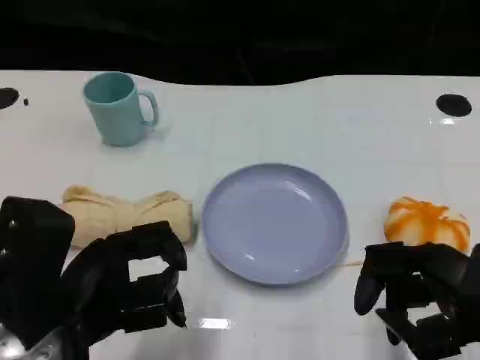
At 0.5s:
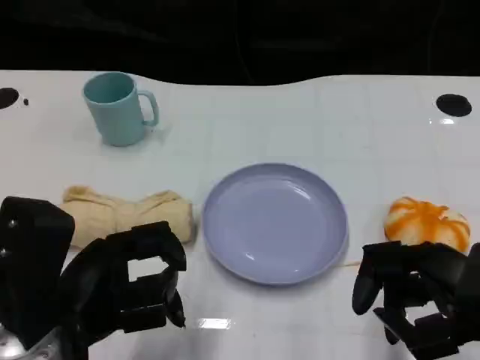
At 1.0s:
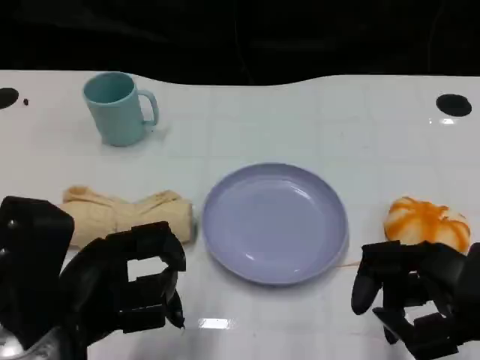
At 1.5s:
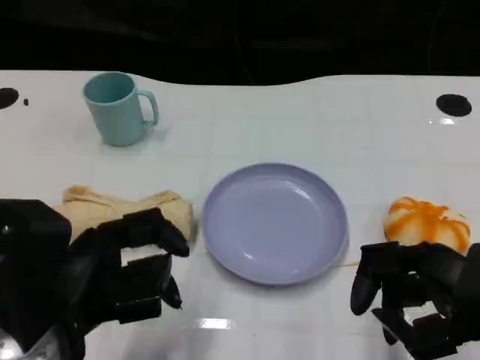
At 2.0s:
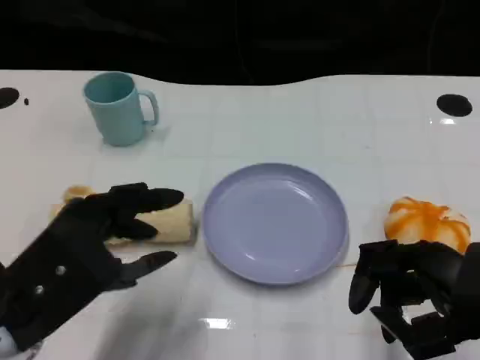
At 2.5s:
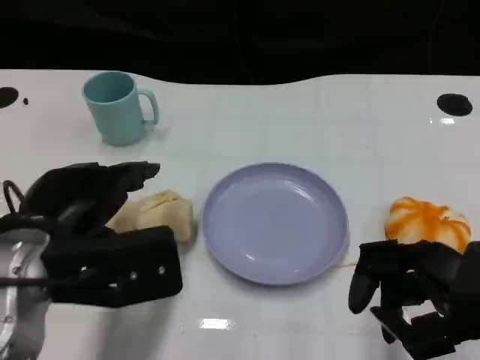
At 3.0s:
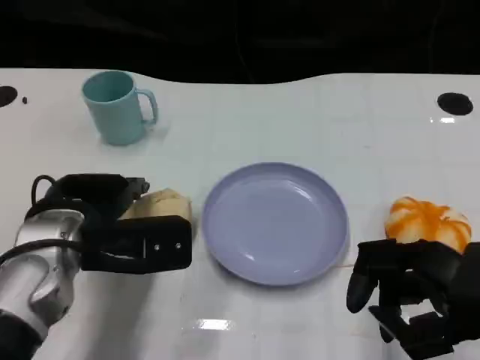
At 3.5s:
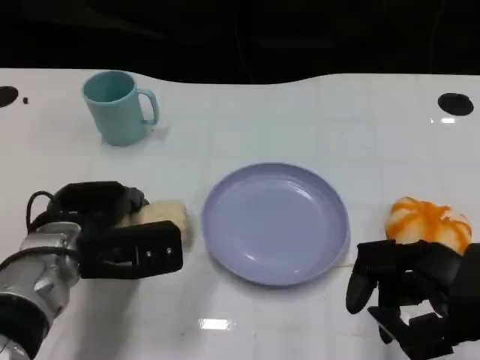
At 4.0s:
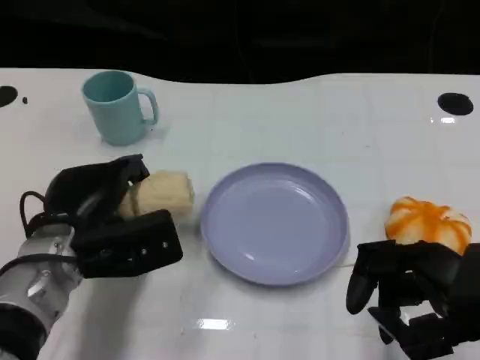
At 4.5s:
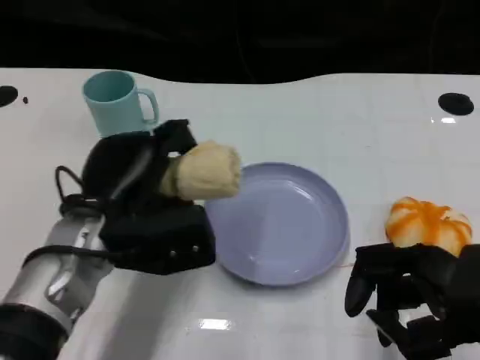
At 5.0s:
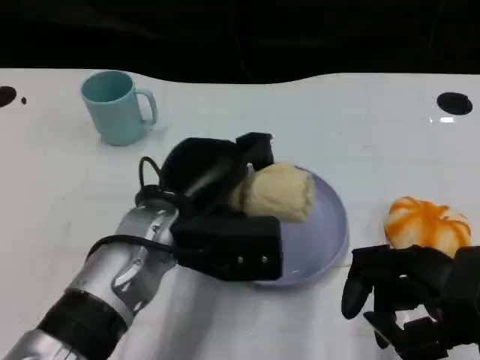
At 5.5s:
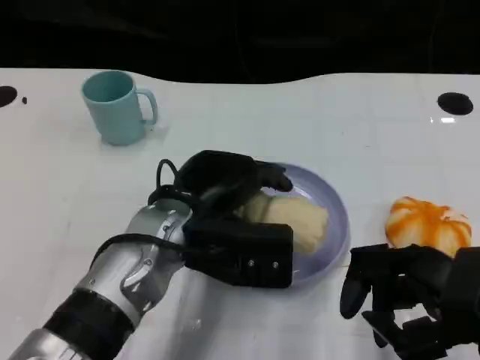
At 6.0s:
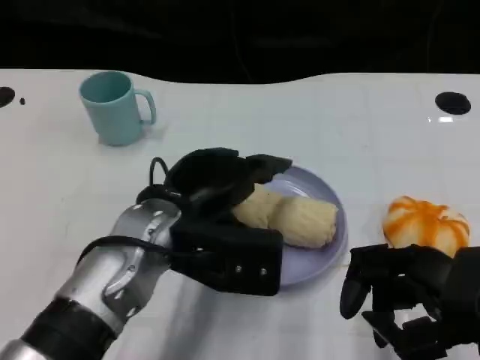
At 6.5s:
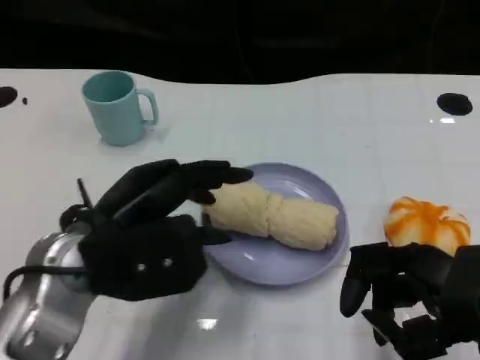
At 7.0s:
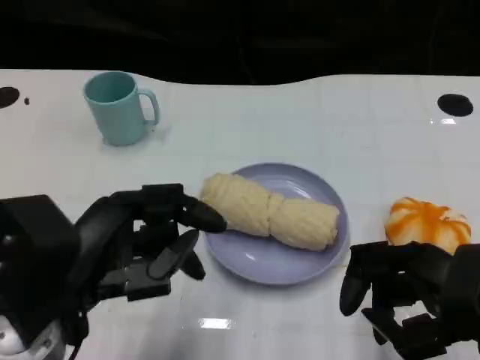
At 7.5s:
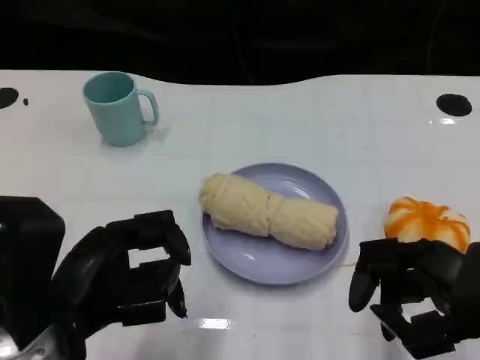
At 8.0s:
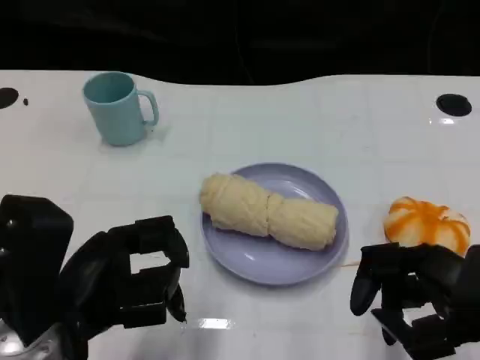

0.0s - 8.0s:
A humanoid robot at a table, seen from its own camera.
Task of the whole recording: Grasp the towel on the left side of the plate with the left hand and place it into the plate.
2.0s - 4.0s: The left hand heads forward and downward, covering roughly 10 cm.
4.0s - 6.0s: The left hand shifts some 10 cm to the right and upward.
6.0s - 8.0s: The left hand heads to the left and backward, covering about 15 cm.

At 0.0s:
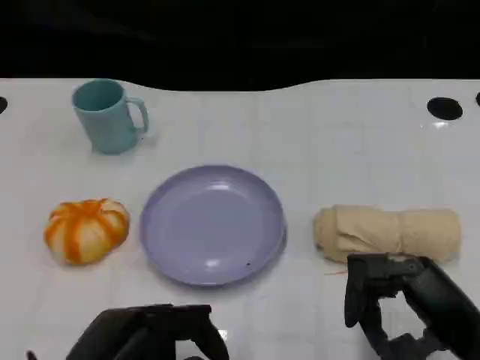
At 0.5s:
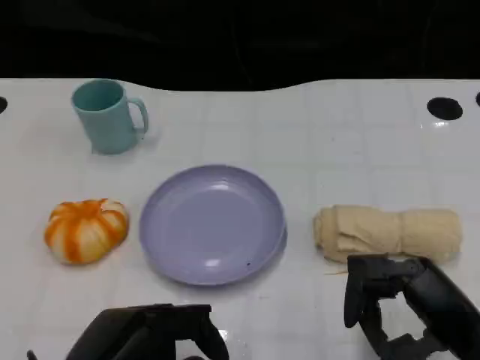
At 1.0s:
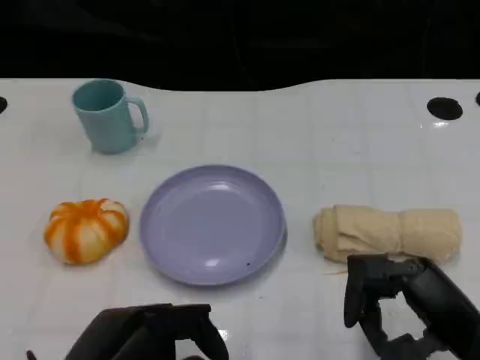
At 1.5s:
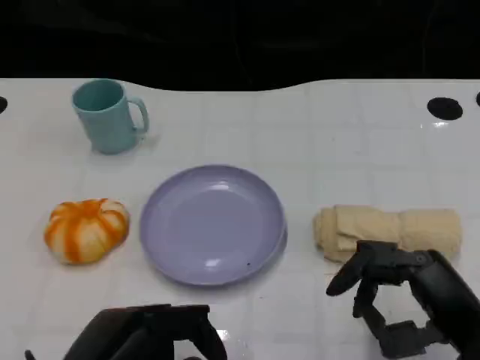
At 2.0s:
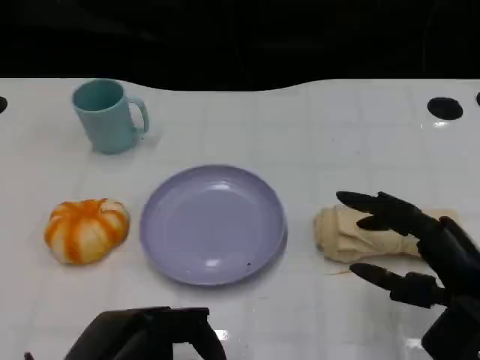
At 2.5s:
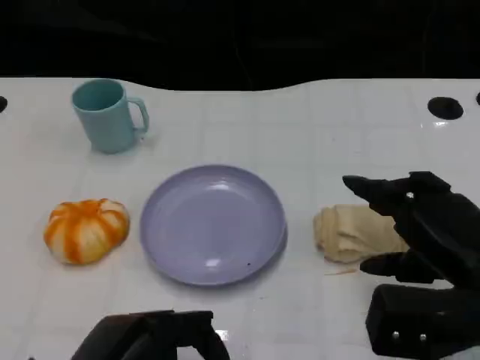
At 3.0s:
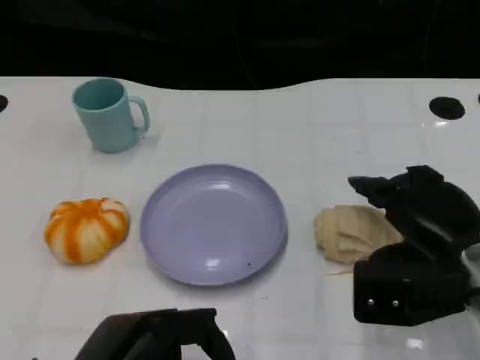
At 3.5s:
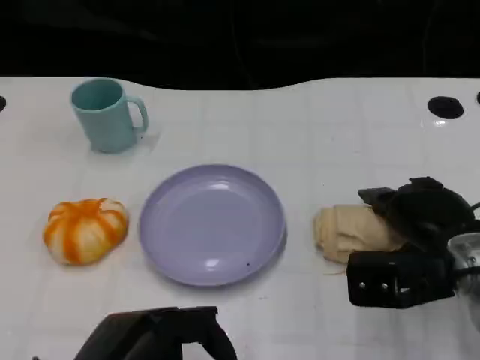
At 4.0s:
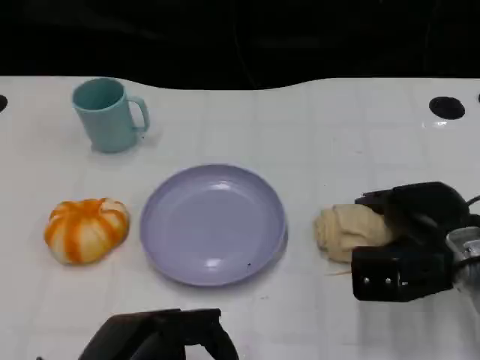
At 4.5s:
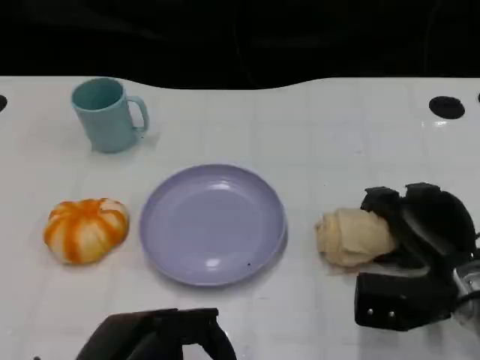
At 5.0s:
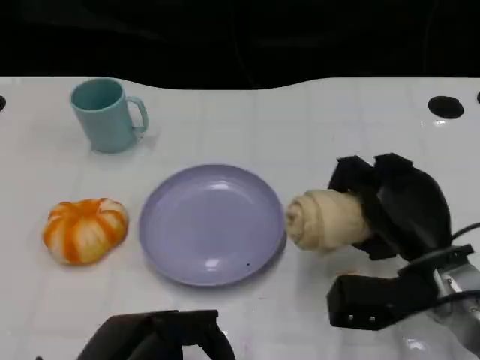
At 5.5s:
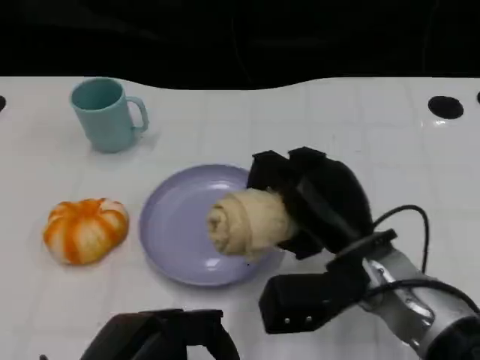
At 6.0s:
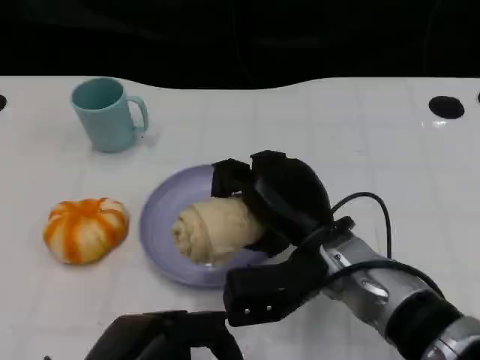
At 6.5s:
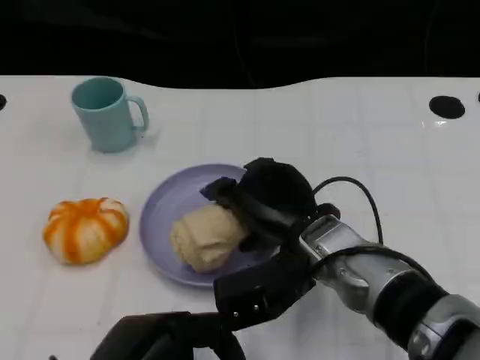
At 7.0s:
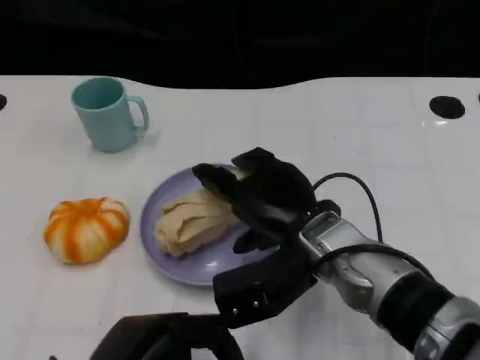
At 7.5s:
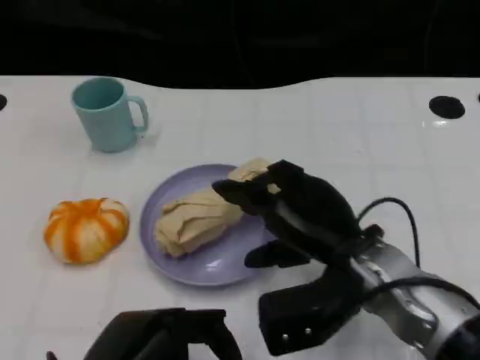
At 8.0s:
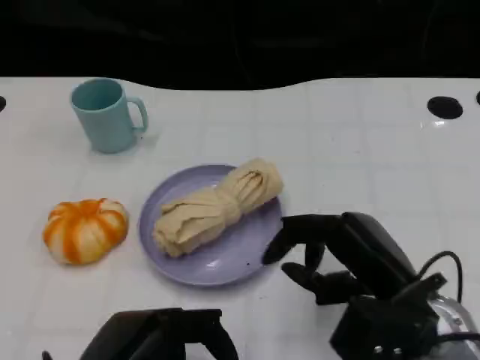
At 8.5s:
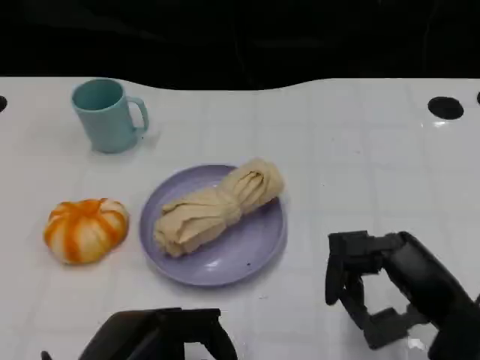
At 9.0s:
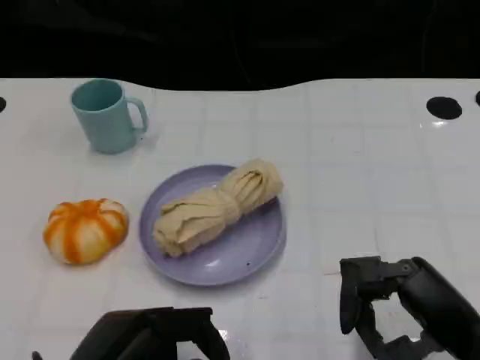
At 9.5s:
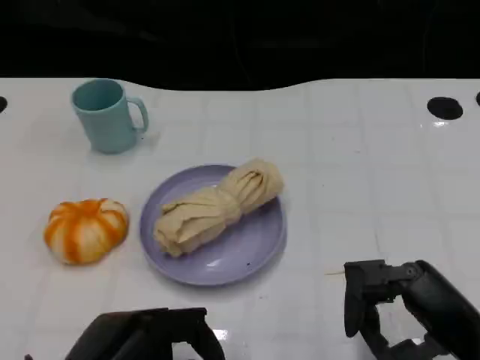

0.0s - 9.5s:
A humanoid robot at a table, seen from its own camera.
Task of the whole recording: Grasp the towel on the left side of the plate with the left hand and place it into the plate.
0.0s - 2.0s: The hands make only small movements.
2.0s - 4.0s: The right hand travels forward by approximately 10 cm.
4.0s - 5.5s: The right hand shifts some 10 cm to the left.
7.5s - 9.5s: The right hand travels to the right and backward by roughly 15 cm.

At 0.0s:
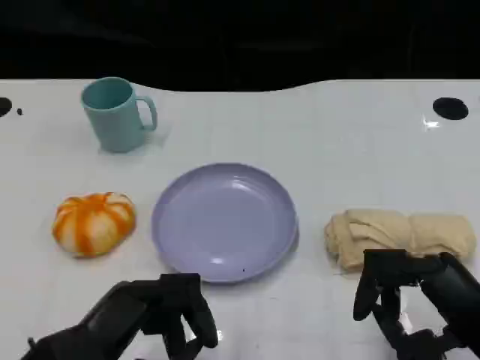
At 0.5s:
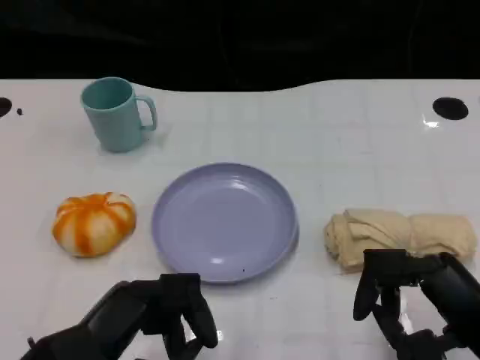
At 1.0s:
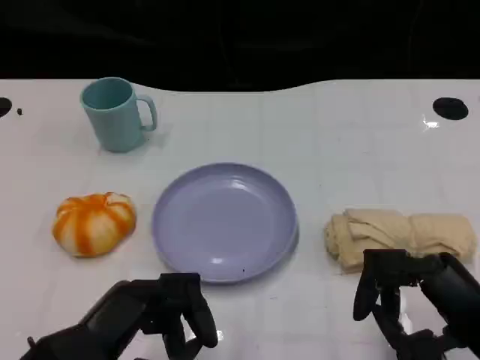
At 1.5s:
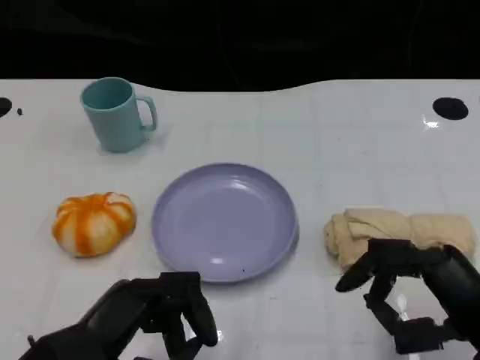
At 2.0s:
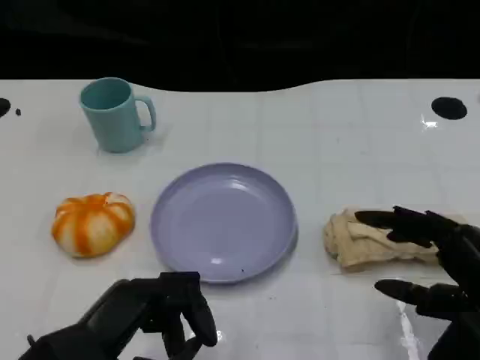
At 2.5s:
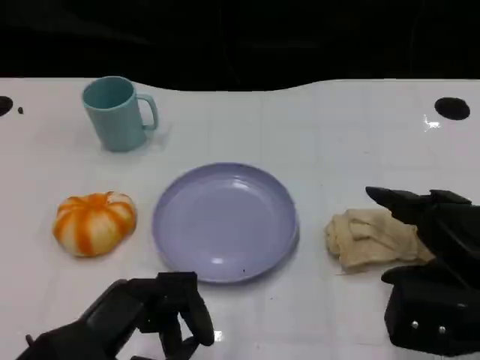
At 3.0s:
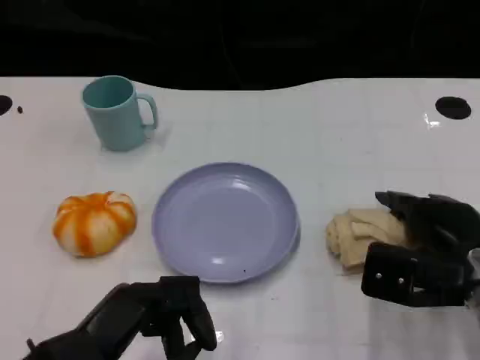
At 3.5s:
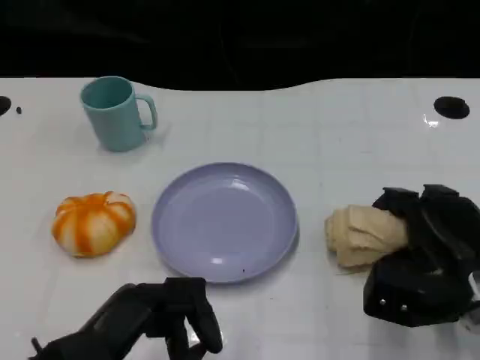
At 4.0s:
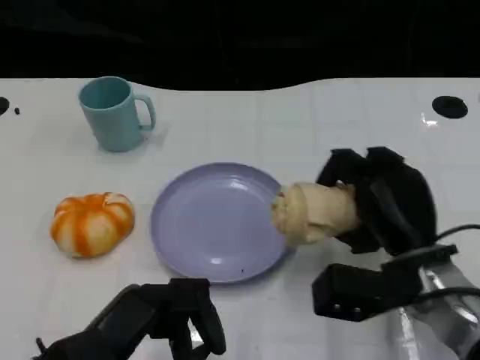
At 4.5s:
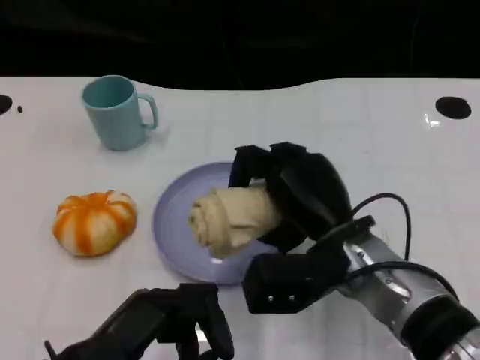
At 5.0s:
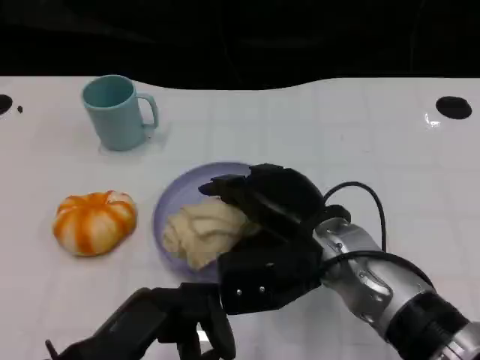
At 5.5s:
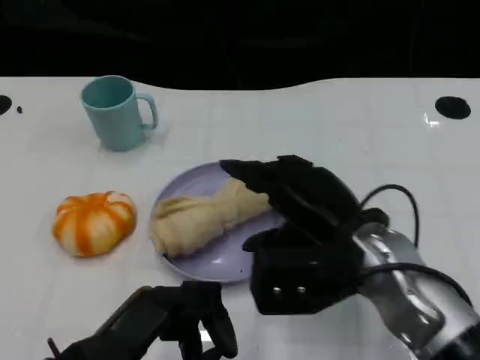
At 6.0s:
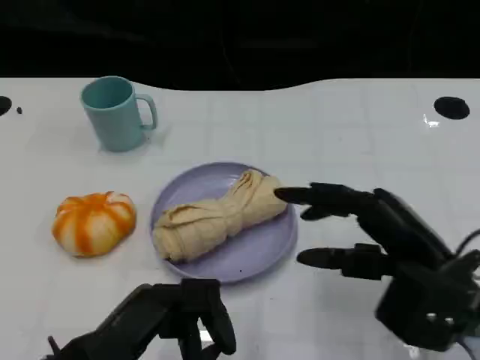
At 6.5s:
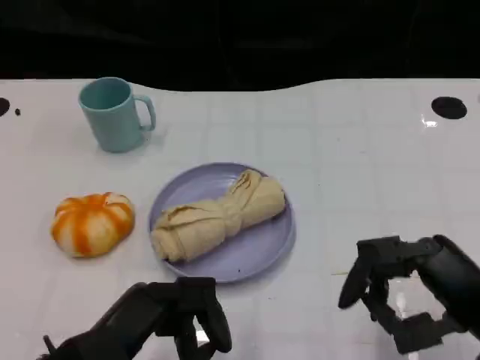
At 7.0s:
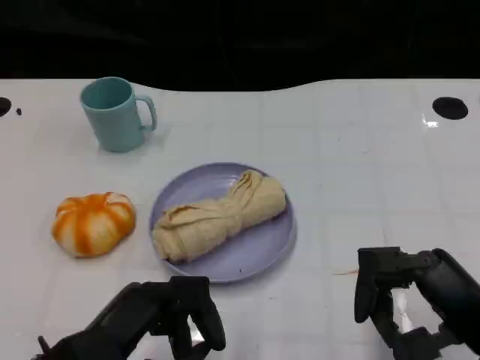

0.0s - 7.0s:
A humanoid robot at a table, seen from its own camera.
Task of the whole recording: Grasp the towel on the left side of the plate with the left hand and place it into the plate.
2.0s - 3.5s: The right hand moves forward and downward, roughly 10 cm.
3.5s - 5.0s: The right hand travels to the left and upward by approximately 15 cm.
5.0s - 7.0s: The right hand heads to the right and backward, covering roughly 20 cm.

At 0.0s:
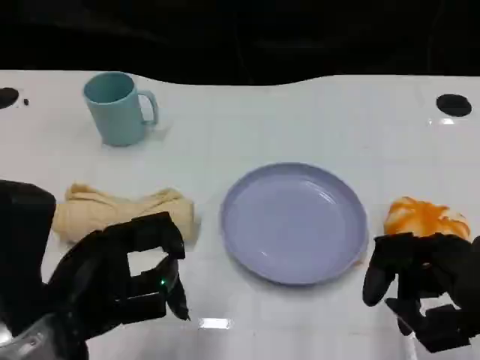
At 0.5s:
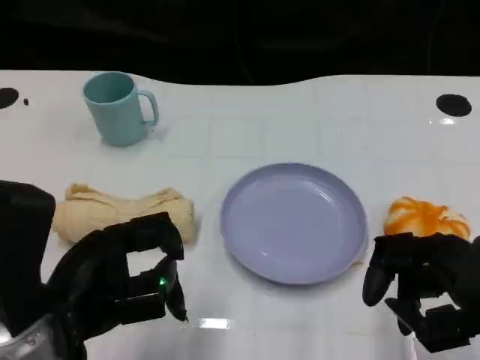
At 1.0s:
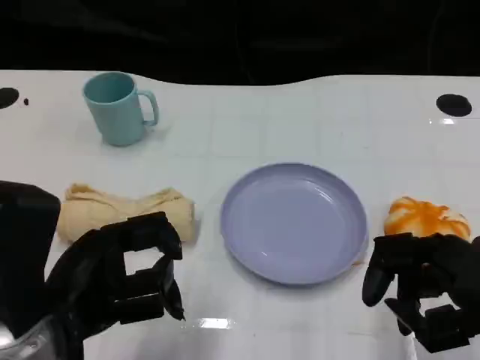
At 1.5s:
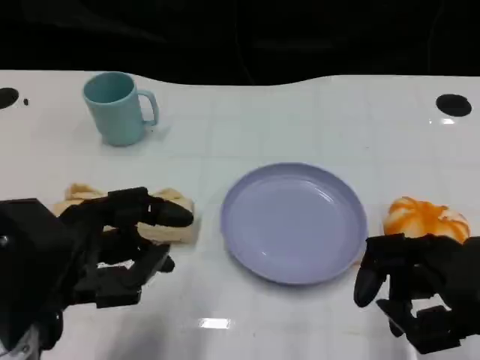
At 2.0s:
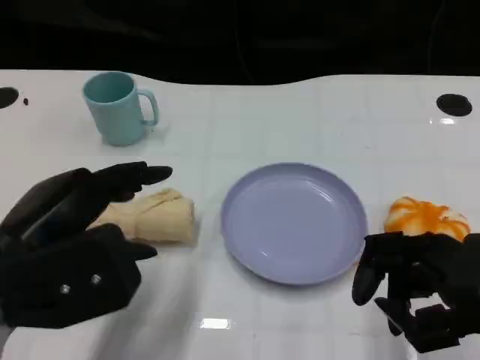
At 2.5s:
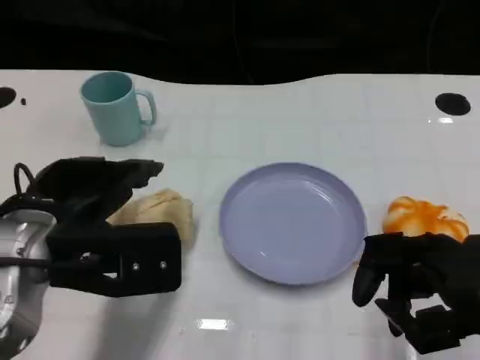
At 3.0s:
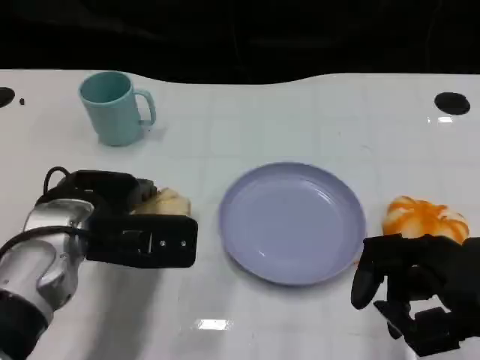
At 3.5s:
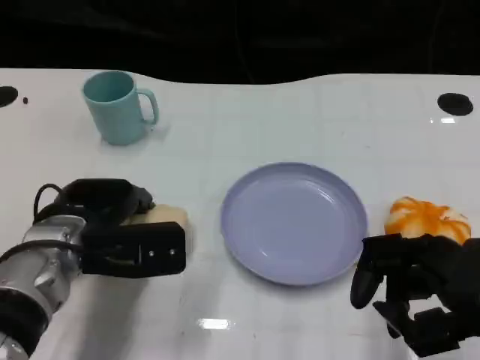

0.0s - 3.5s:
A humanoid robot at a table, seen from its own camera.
Task of the whole recording: Grasp the towel on the left side of the plate with the left hand and place it into the plate.
2.0s - 3.5s: The left hand heads forward and downward, covering roughly 15 cm.
